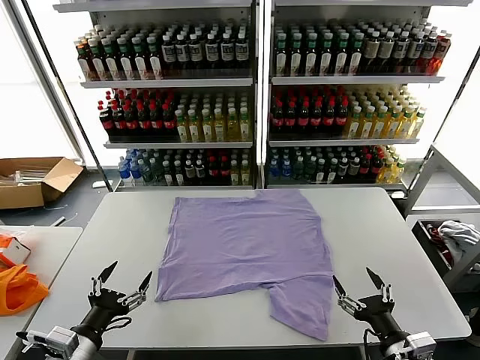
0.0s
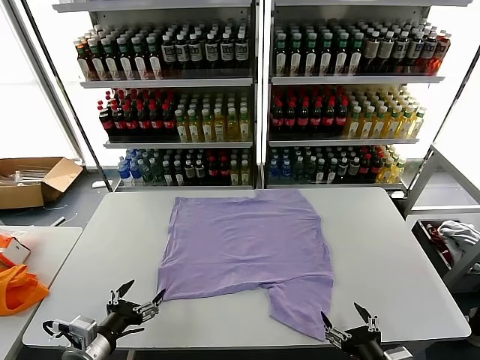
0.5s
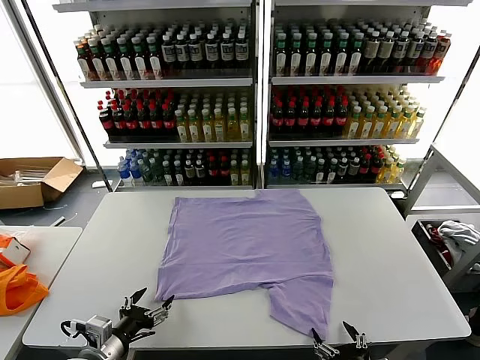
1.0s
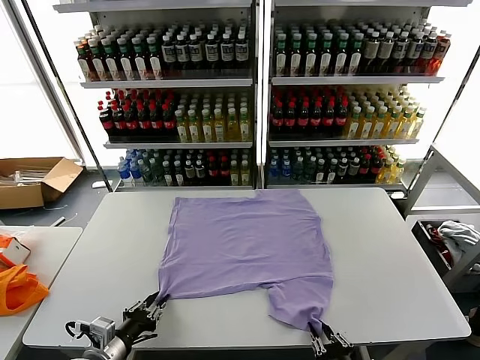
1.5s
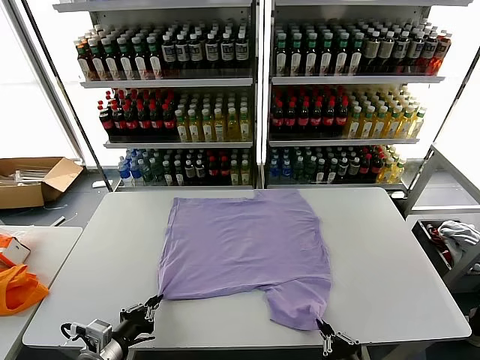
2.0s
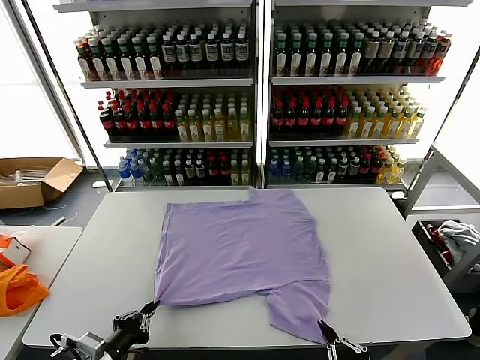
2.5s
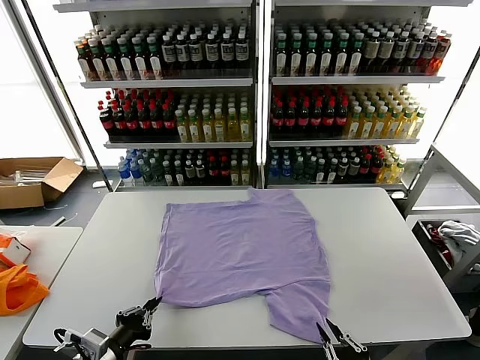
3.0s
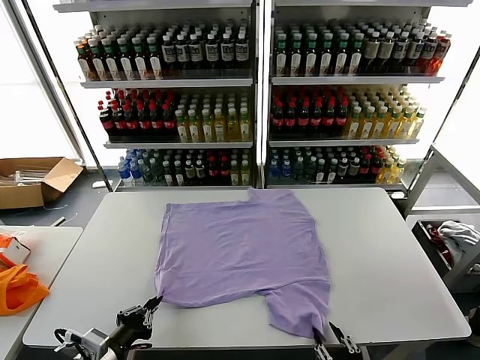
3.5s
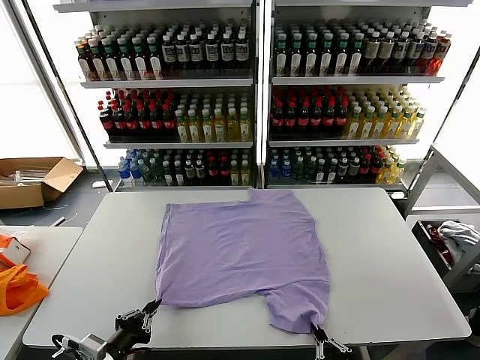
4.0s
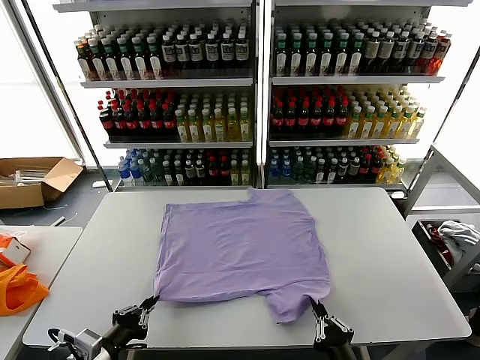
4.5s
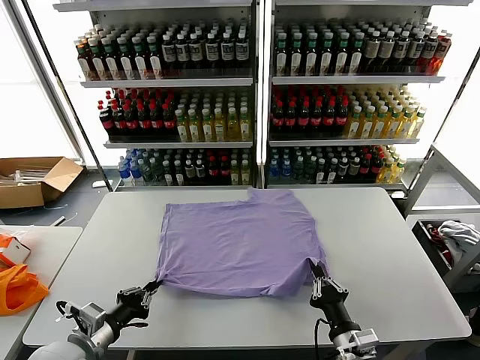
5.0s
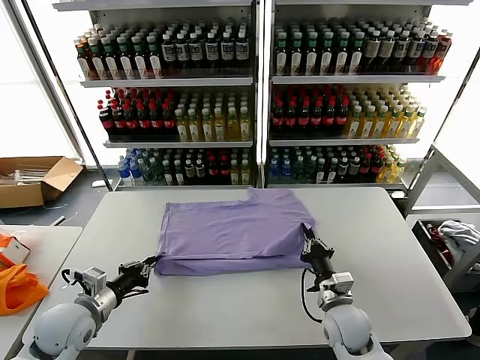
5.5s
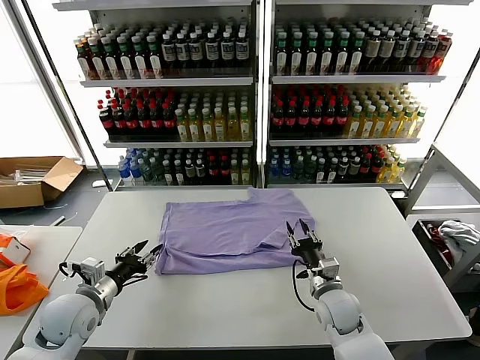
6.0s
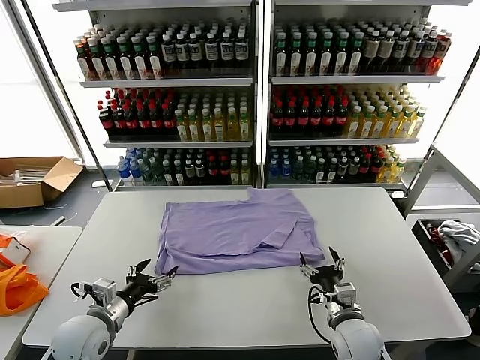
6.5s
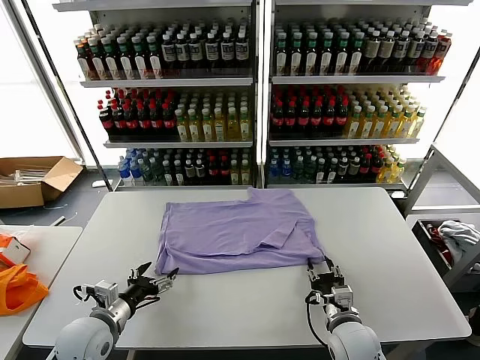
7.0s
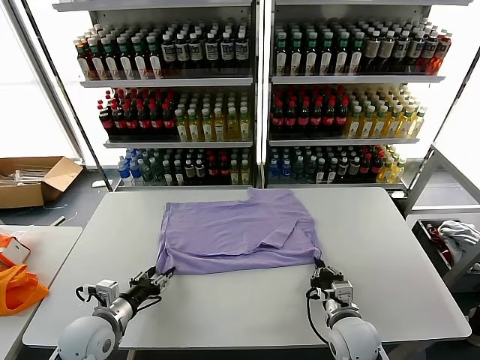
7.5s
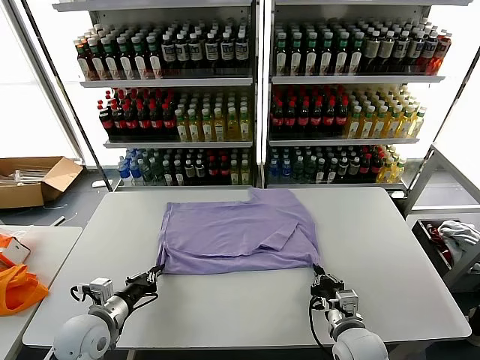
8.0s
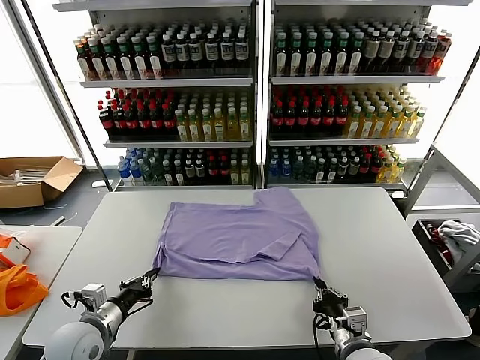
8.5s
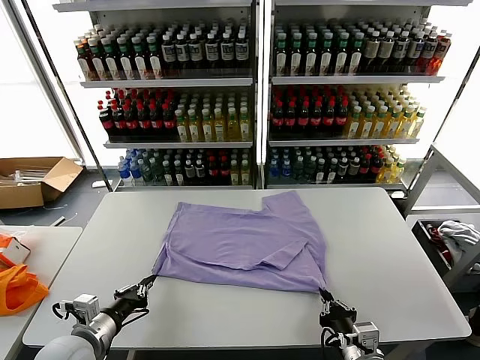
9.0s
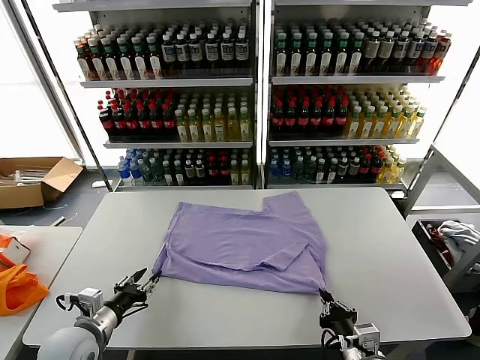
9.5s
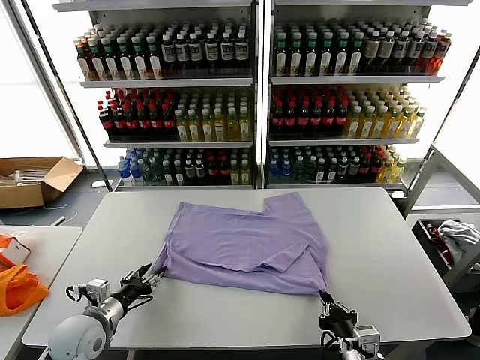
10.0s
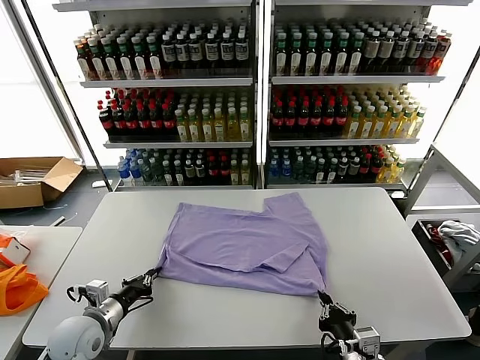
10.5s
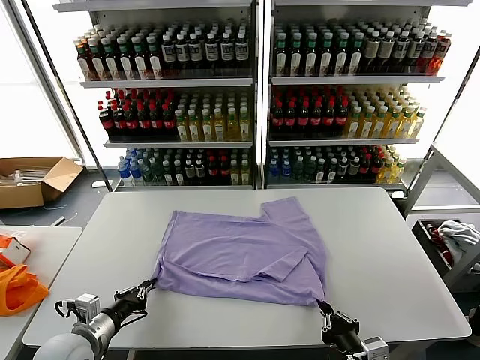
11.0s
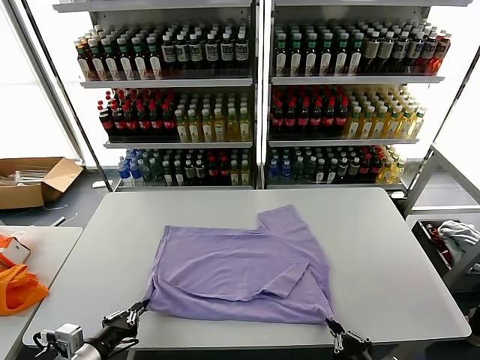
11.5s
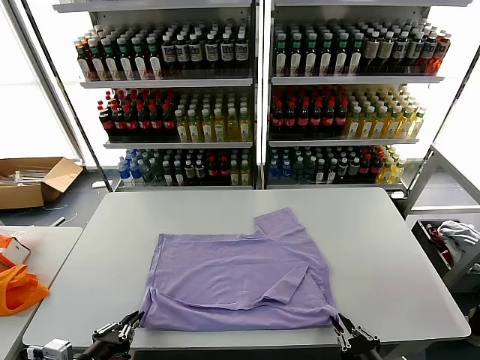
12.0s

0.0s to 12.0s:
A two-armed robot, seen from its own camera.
Task of the whole recording: fold and organize the clothes.
Step, 0.0s to 1.5s: use both grippers simultaneously to clamp the lower edge of the clothing fabric.
Step, 2.0s to 6.0s: use both grippers to drag the lower edge of the fabric forward and fold it over the upper edge.
2.0s to 4.0s: The right gripper shifts approximately 5 cm downward, and opens, then closes once more.
4.0s to 6.0s: The right gripper shifts some 25 cm forward, and opens. Meanwhile the left gripper goes roughly 15 cm forward, and opens its fingers.
6.0s to 8.0s: The left gripper closes up. The right gripper moves backward, roughly 10 cm, and closes up.
8.0s to 10.0s: The left gripper opens its fingers, while the right gripper heads backward, covering approximately 10 cm.
10.0s to 12.0s: The right gripper travels backward and to the right by approximately 5 cm. Meanwhile the left gripper travels backward by some 15 cm, and closes its fingers.

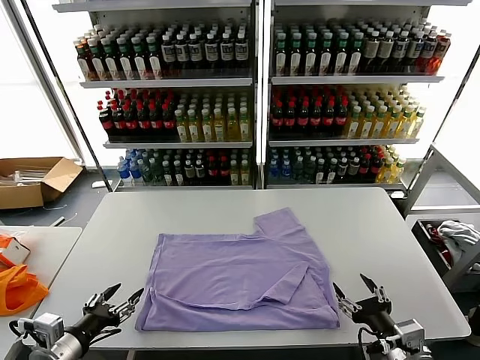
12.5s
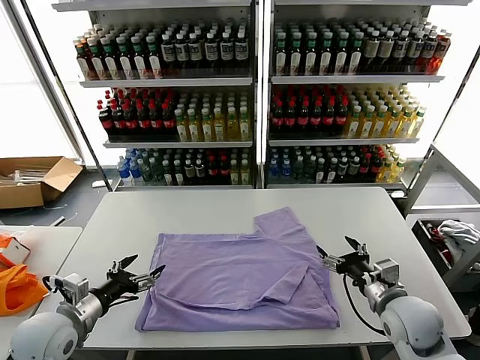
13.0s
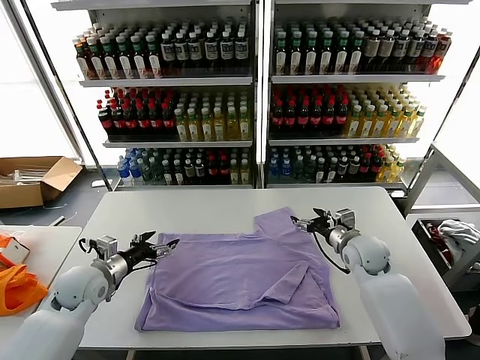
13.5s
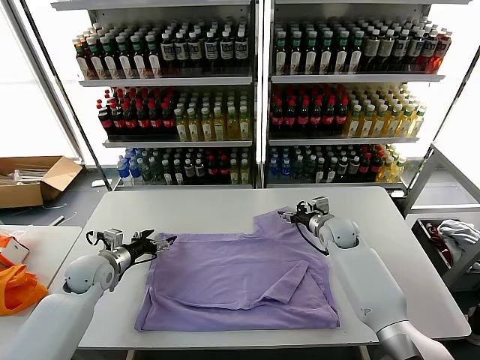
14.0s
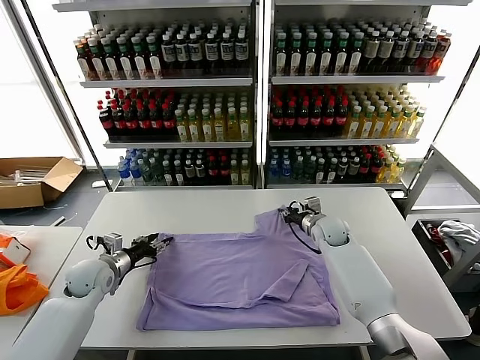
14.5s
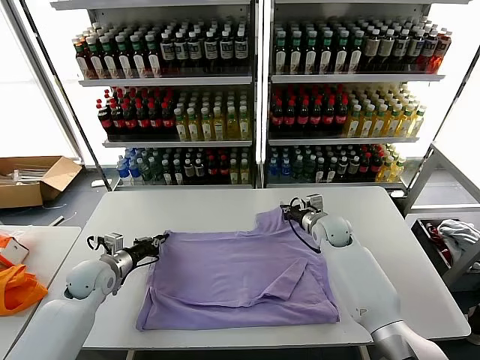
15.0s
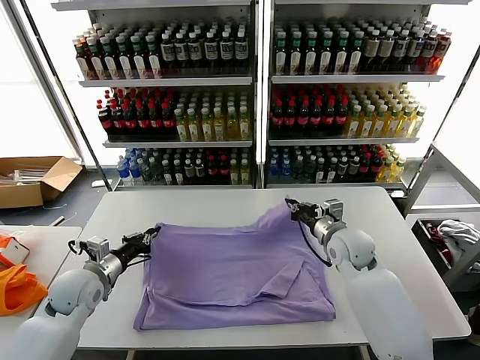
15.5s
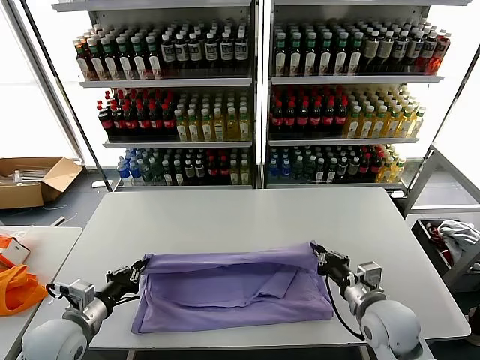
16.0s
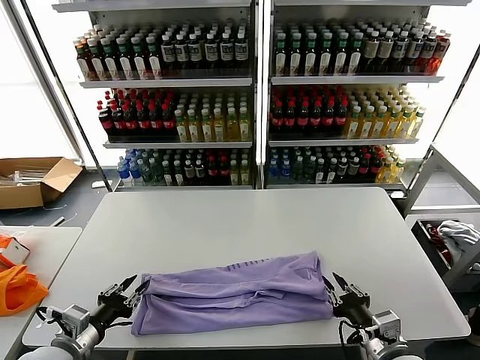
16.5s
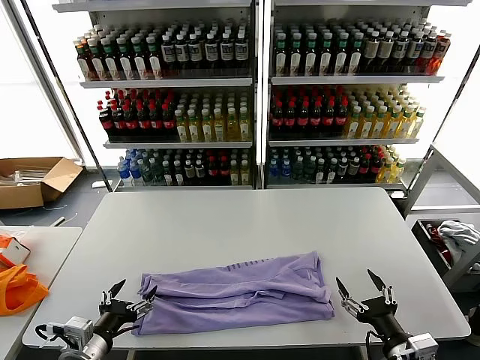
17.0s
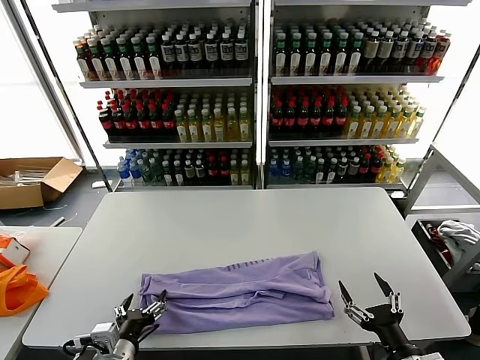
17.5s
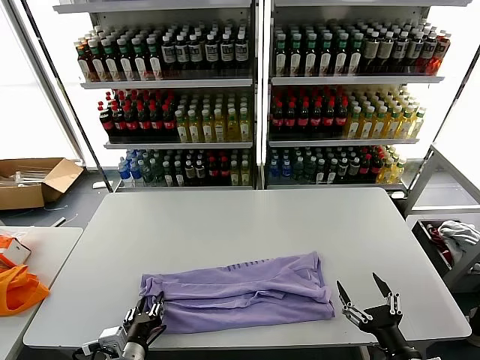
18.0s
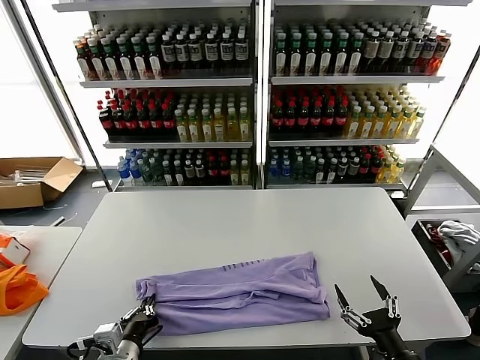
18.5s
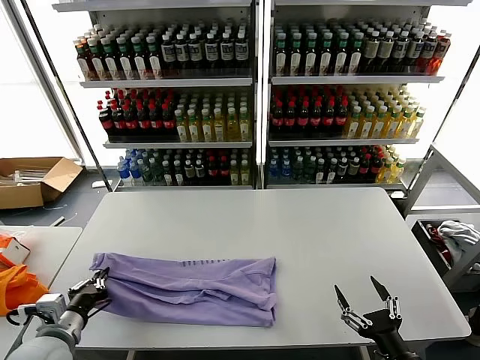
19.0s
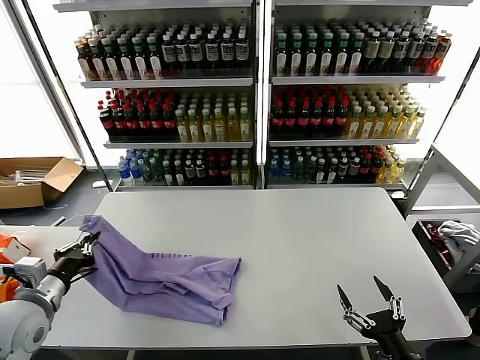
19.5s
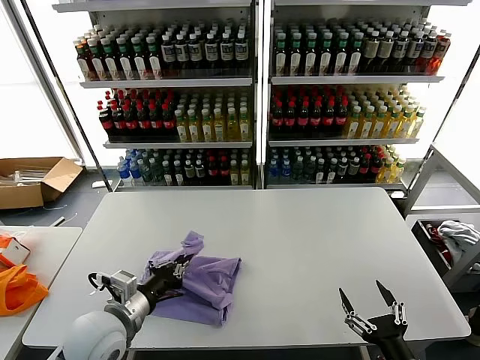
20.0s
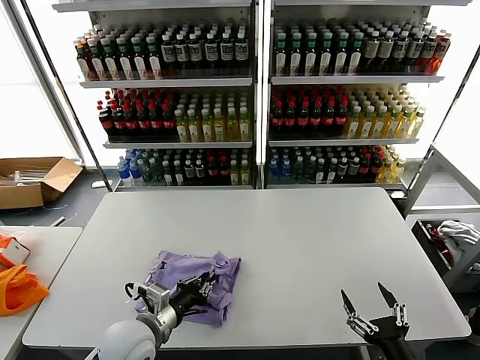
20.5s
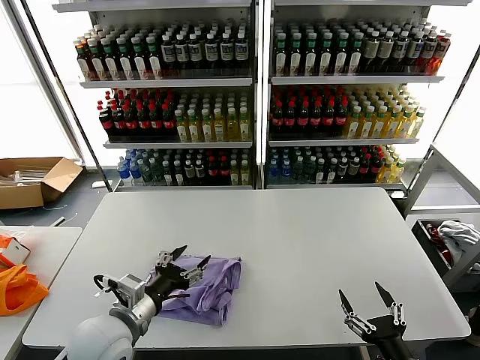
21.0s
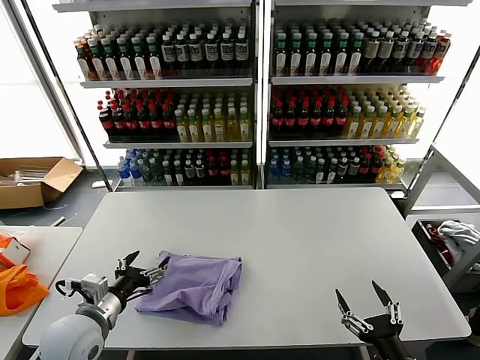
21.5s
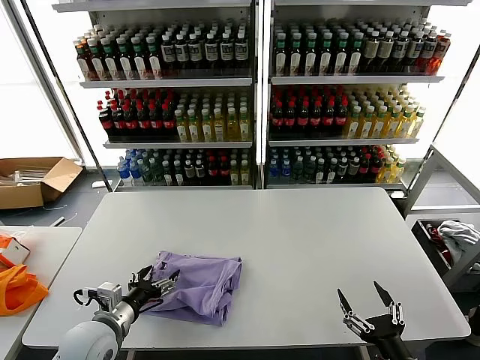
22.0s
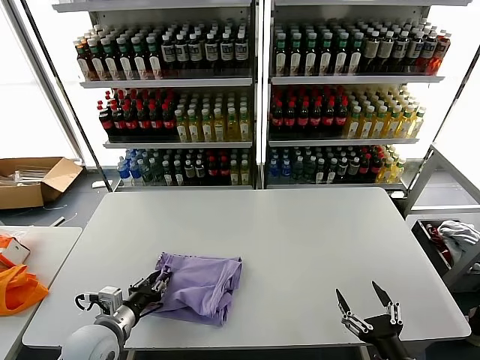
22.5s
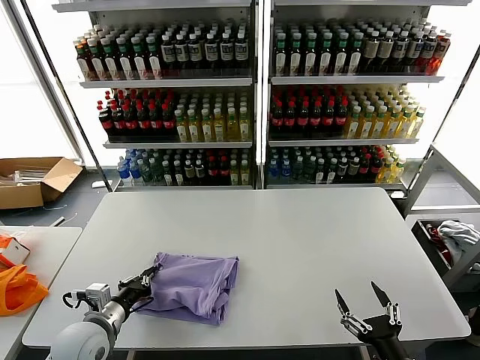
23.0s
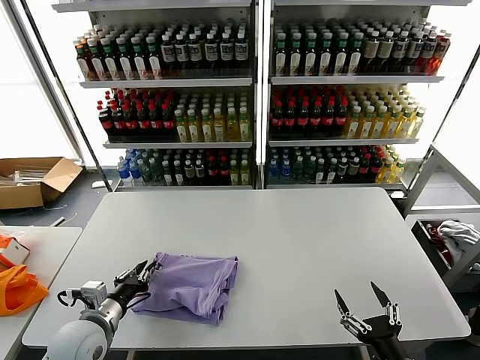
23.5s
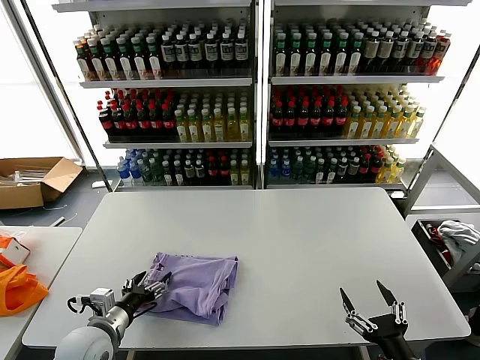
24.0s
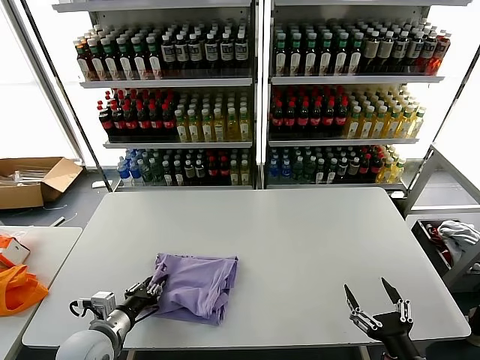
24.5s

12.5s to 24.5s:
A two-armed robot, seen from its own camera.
Task of the whole recording: fold and organize the clothes.
Step, 12.5s to 14.5s: use both grippers simultaneously to clamp the upper edge of the clothing fabric.
Step, 15.0s to 16.5s: use both grippers to drag the upper edge of the fabric backward and fold it over the lower edge.
Step, 17.0s to 18.0s: use the left gripper to clamp the left edge of the fabric.
Step, 18.5s to 20.5s: use the left gripper to drag the left edge of the fabric to the left and folds it over the right edge.
12.5s to 14.5s: The left gripper heads forward, covering some 25 cm. Meanwhile the right gripper shifts some 35 cm forward, and closes its fingers.
14.5s to 16.5s: The right gripper moves backward, some 35 cm. The left gripper goes about 20 cm backward, and closes, then reopens.
16.5s to 18.5s: The right gripper moves backward, some 5 cm, and opens, while the left gripper goes roughly 10 cm to the right, and opens and closes again.
18.5s to 20.5s: The left gripper moves forward, about 5 cm, and goes to the left and returns, some 15 cm each way.
20.5s to 22.5s: The left gripper moves to the left, approximately 10 cm, and opens, then closes again.
22.5s to 24.5s: The left gripper closes and opens again.

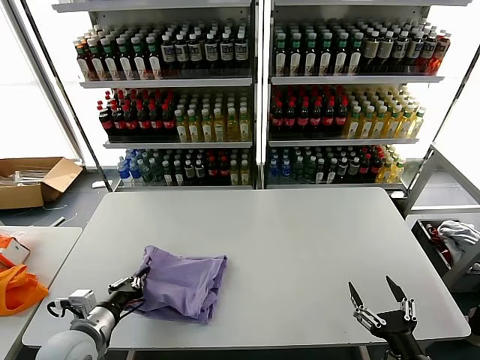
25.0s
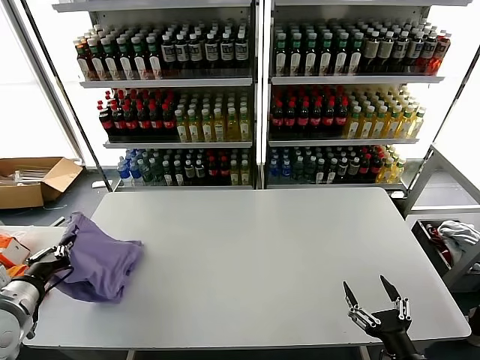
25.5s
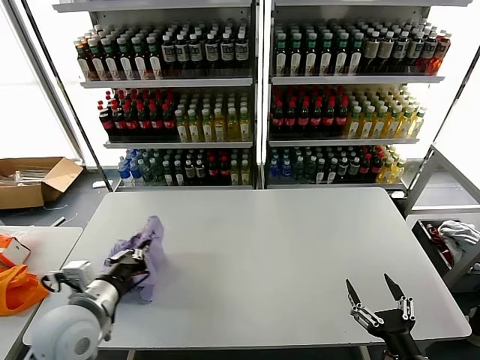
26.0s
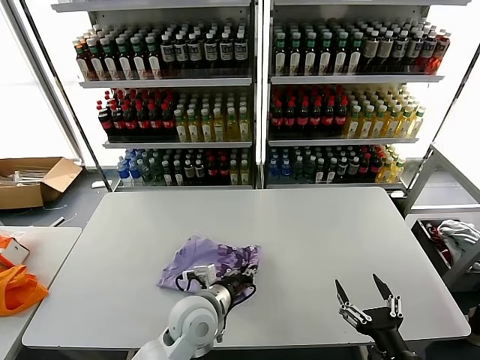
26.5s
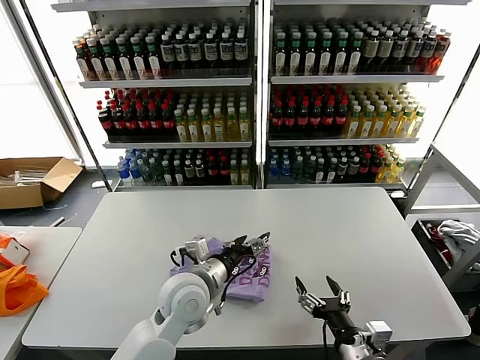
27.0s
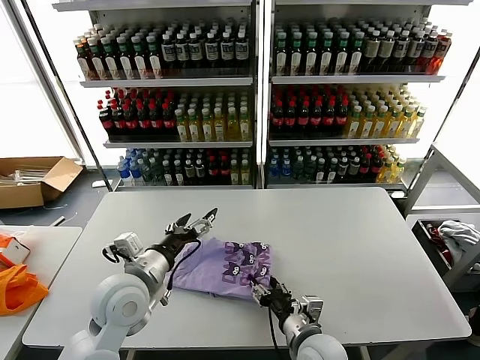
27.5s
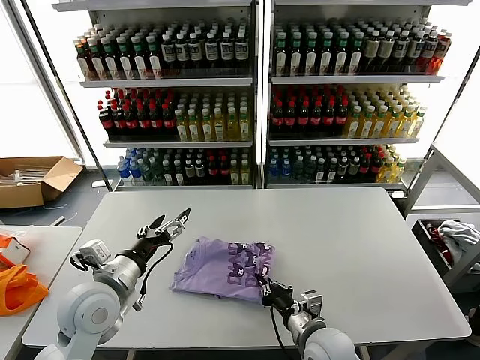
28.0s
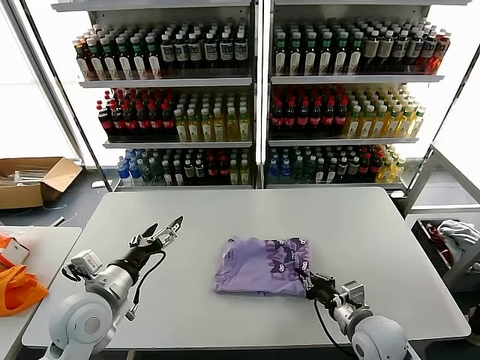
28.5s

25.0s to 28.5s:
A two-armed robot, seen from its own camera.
Task of the whole recording: fold and organize the clothes.
25.0s to 27.0s: The left gripper moves to the right and forward, approximately 25 cm, and opens its fingers, while the right gripper is displaced to the left and forward by approximately 10 cm.
27.0s to 28.5s: The right gripper shifts some 10 cm forward, goes to the left and returns, some 10 cm each way, and closes its fingers. Meanwhile the left gripper shifts approximately 20 cm to the left.
